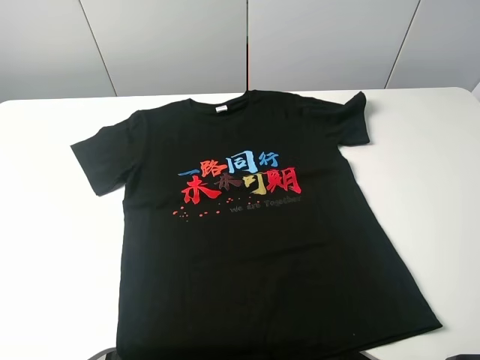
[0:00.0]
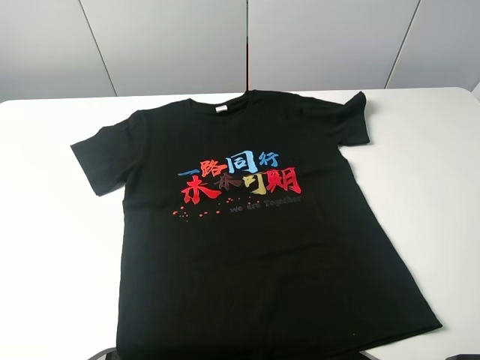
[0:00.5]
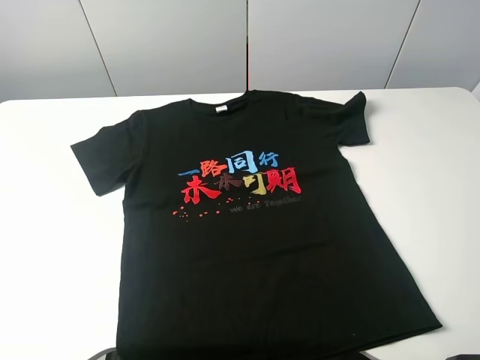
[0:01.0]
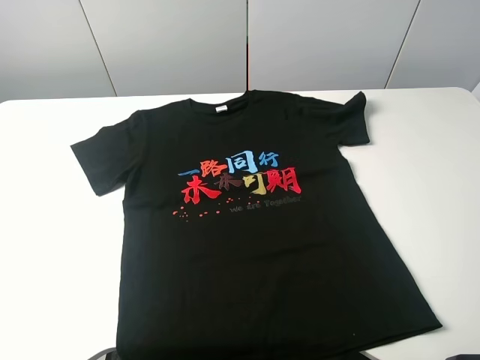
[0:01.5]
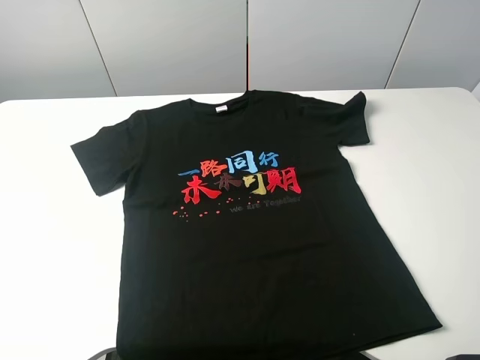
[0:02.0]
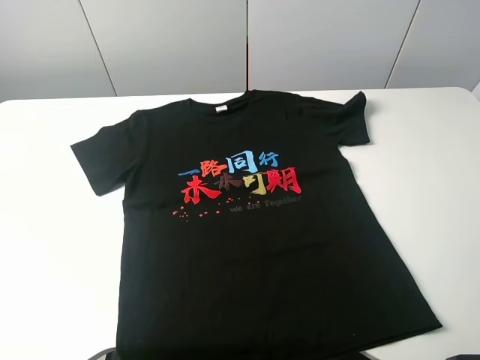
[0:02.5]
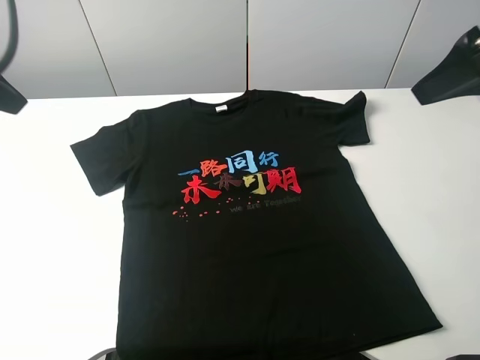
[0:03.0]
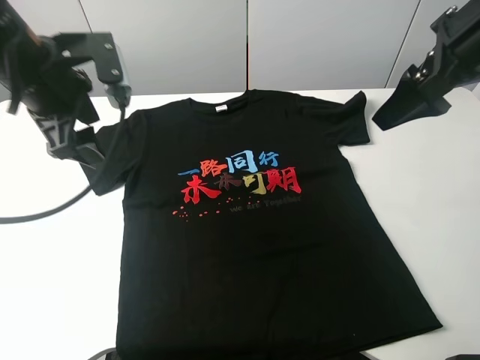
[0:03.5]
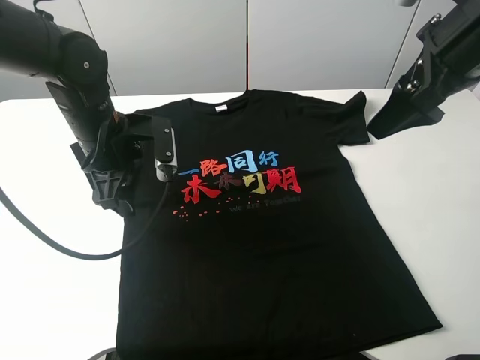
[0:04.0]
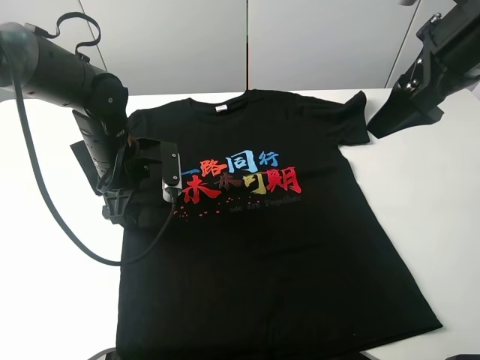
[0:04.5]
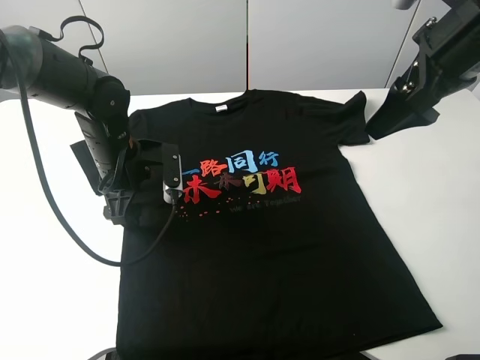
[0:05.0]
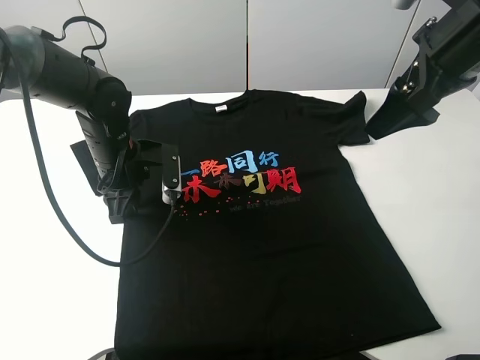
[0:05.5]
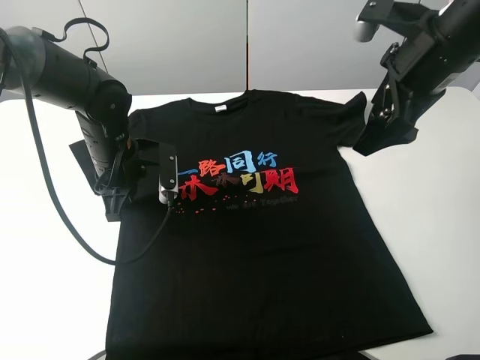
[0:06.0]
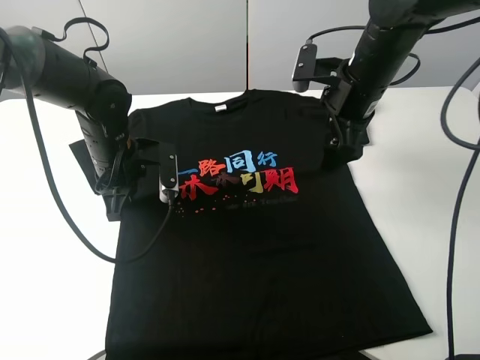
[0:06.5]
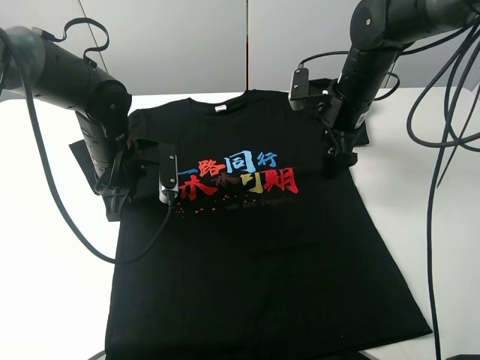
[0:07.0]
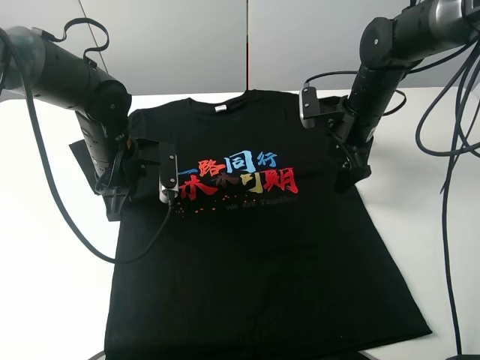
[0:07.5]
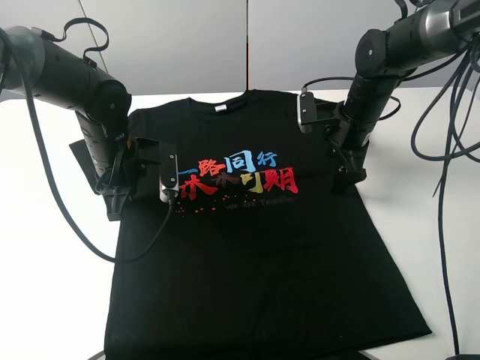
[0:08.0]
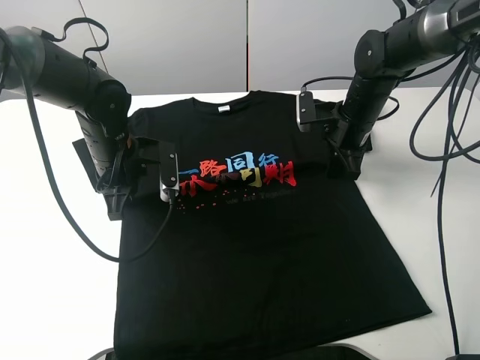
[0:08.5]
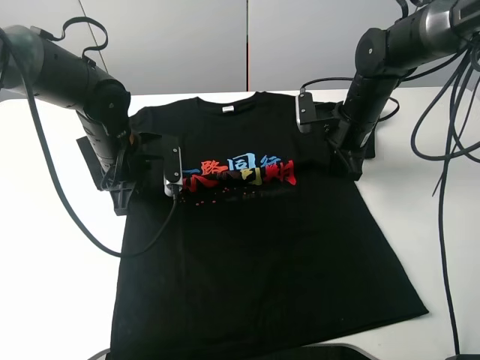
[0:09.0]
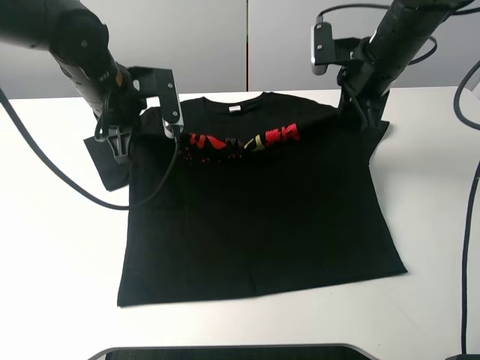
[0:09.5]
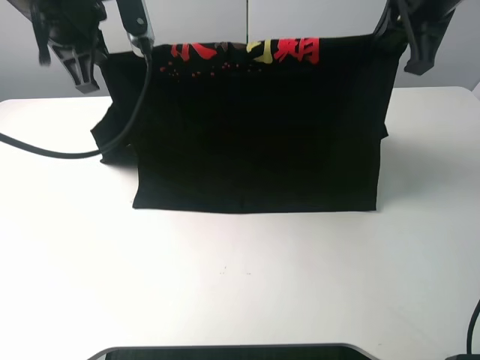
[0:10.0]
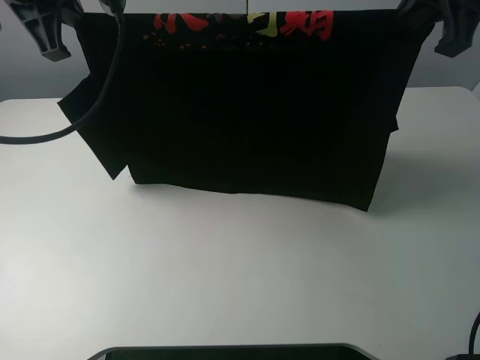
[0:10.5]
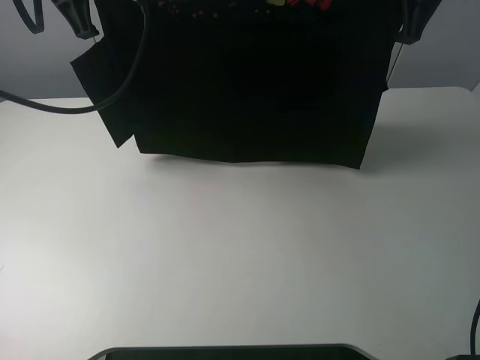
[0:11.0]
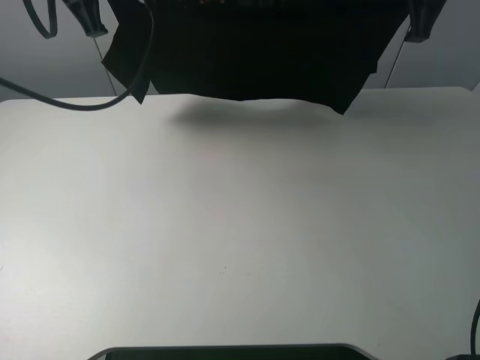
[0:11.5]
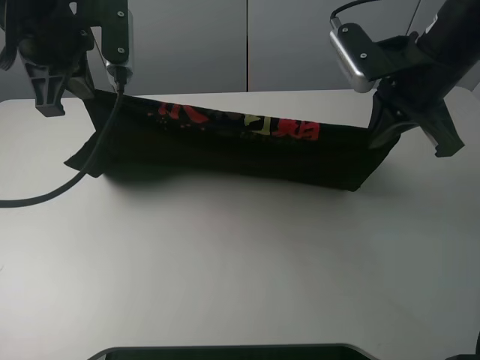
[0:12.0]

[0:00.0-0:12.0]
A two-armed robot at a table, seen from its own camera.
Task of the whole recording: fold the clothes on the table.
Step, 0:00.0 to 0:08.5: Lift the black T-shirt with the left gripper.
0:02.0 to 0:04.0: The left gripper heads forward, to the right and downward, covering approximately 40 cm. Meanwhile the right gripper travels forward by about 30 cm.
0:04.0 to 0:06.0: The left gripper closes up.
0:06.0 to 0:08.0: The right gripper moves downward and forward, about 20 cm.
0:08.0 to 0:10.0: Both grippers move upward, approximately 20 cm. The right gripper closes up.
0:10.0 to 0:12.0: The right gripper shifts some 10 cm downward.

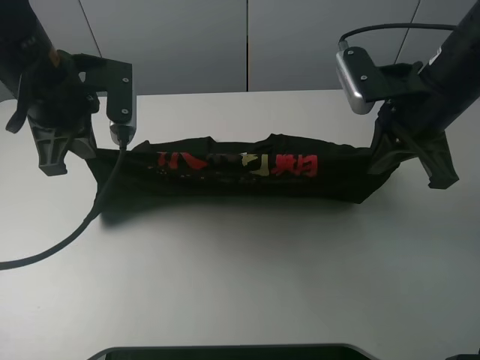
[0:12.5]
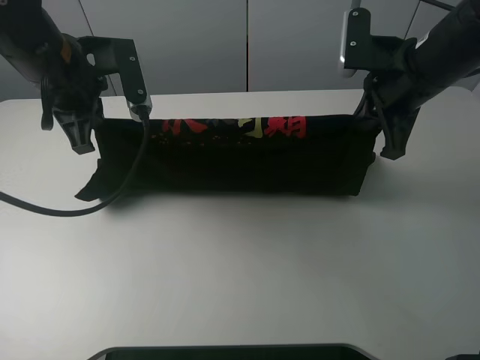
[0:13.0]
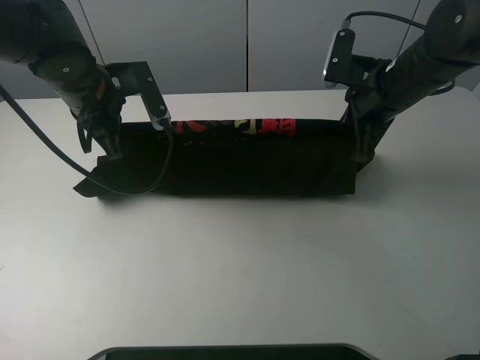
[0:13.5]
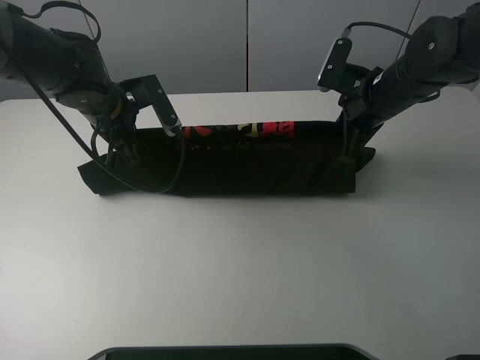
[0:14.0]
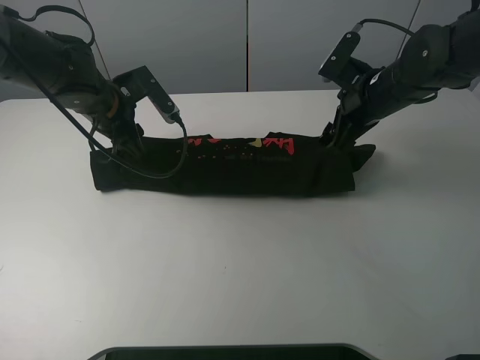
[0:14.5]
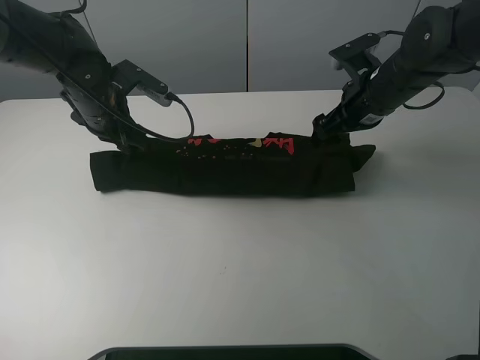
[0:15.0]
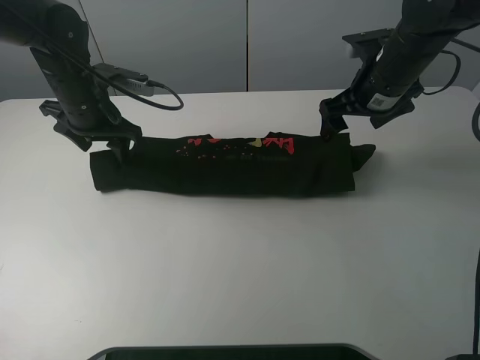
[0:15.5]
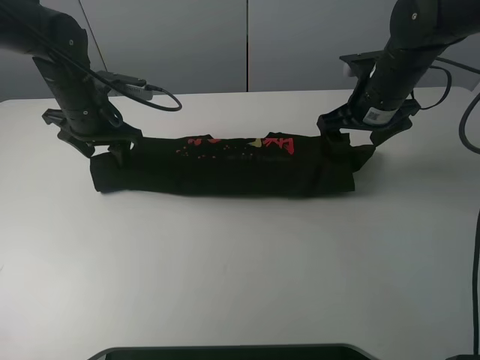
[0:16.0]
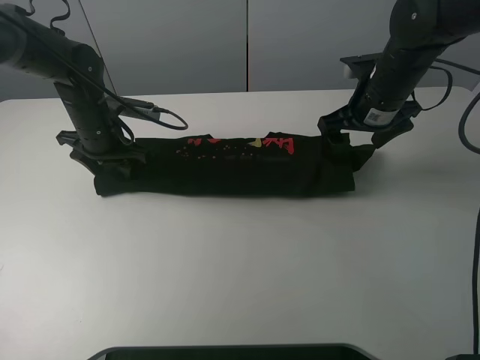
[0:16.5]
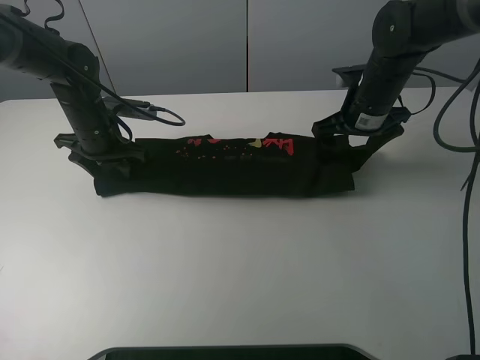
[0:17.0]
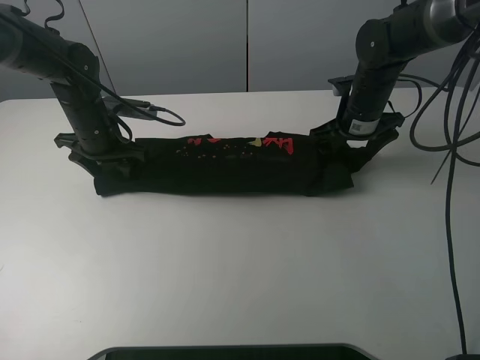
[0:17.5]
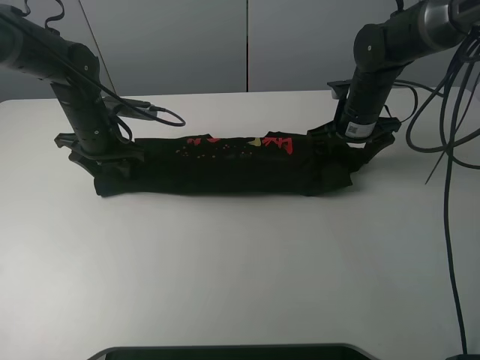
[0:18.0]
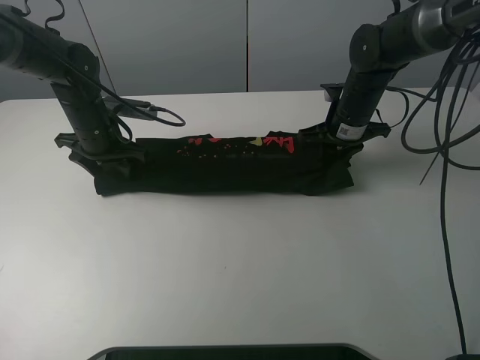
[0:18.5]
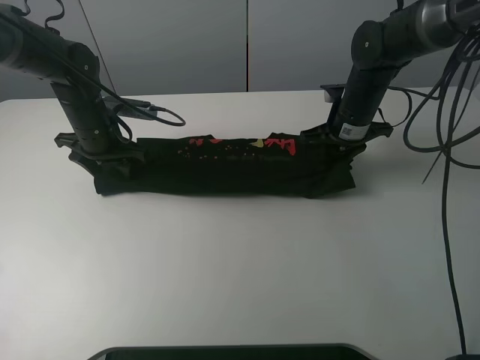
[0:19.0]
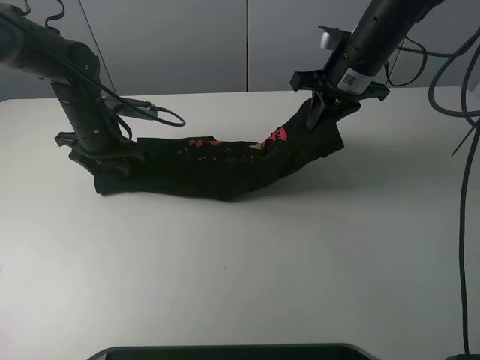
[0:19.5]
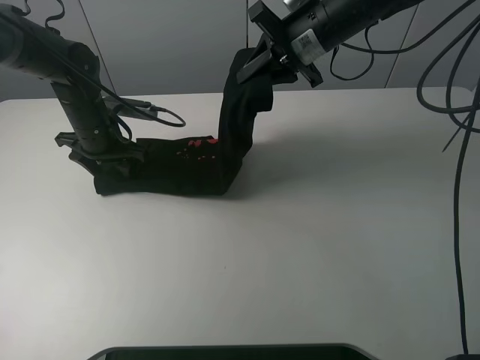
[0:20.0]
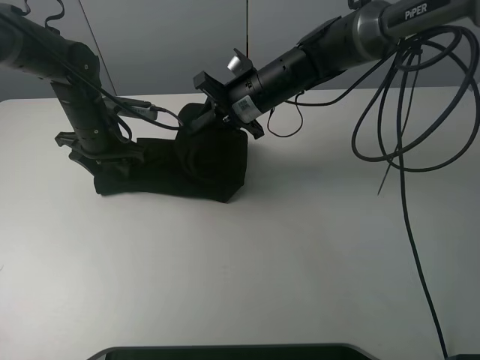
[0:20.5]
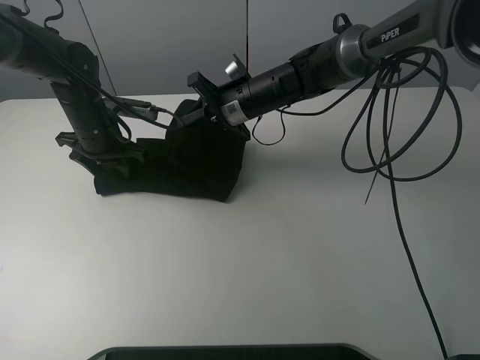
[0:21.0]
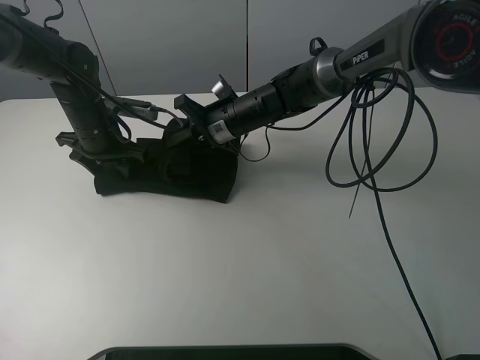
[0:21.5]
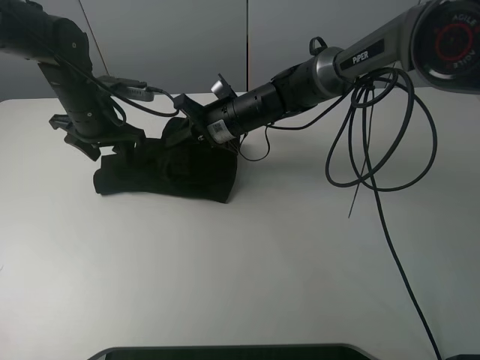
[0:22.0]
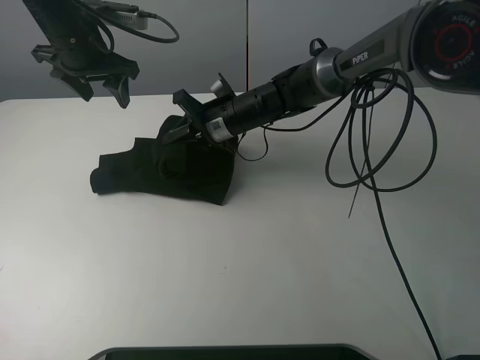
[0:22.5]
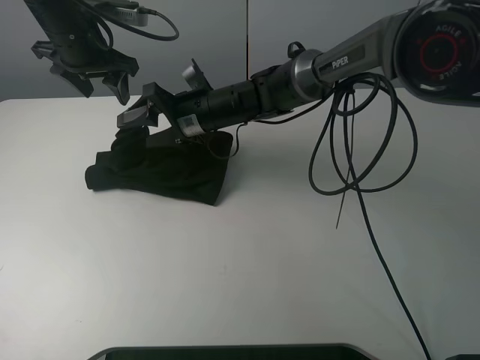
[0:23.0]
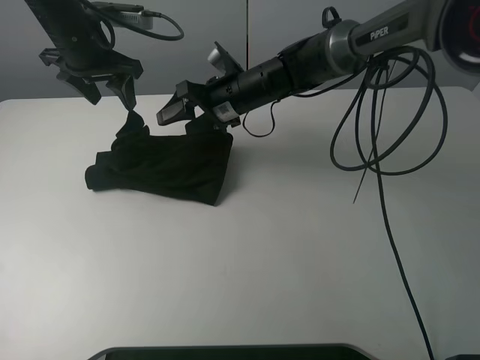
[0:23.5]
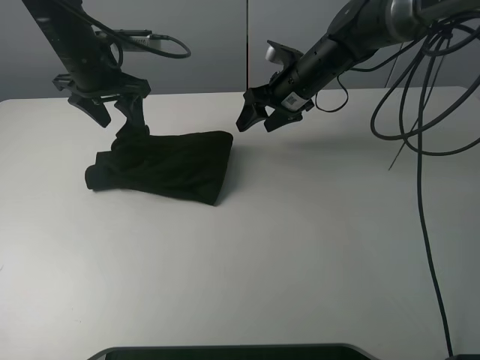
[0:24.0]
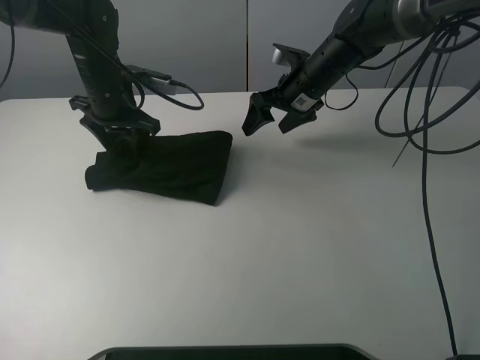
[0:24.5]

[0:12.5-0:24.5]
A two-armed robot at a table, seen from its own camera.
Task of the whole recording: fold the clothes on the table.
Step, 0:12.5 to 0:14.5: Fold the black T-shirt downward with the left gripper.
Step, 0:15.0 to 0:18.5: Grasp the black T-shirt with the left gripper.
Step, 0:19.0 to 0:23.0: Fold the black T-shirt from right to left with right gripper.
0:12.5 to 0:14.5: The right gripper travels forward and downward by some 10 cm, and opens its fingers. The left gripper shifts about 15 cm downward and forward, and opens.
0:16.5 to 0:18.5: The right gripper is displaced downward by some 5 cm, and closes its fingers.
0:18.5 to 0:20.5: The right gripper travels to the left by some 15 cm.
0:20.5 to 0:22.5: The left gripper is displaced upward by roughly 15 cm; the right gripper shifts by some 5 cm.
0:22.5 to 0:24.5: The right gripper is displaced to the right by some 10 cm, and opens, while the left gripper moves downward, some 10 cm.

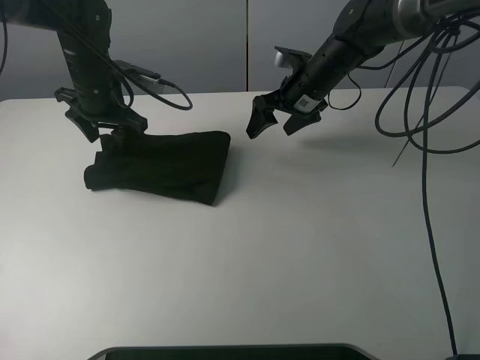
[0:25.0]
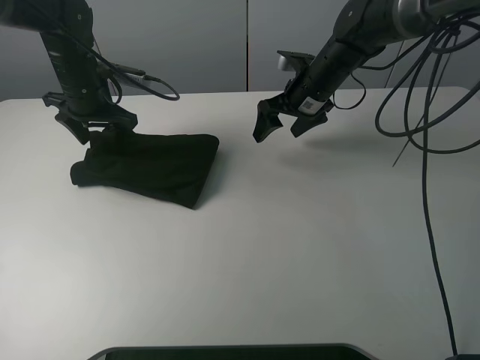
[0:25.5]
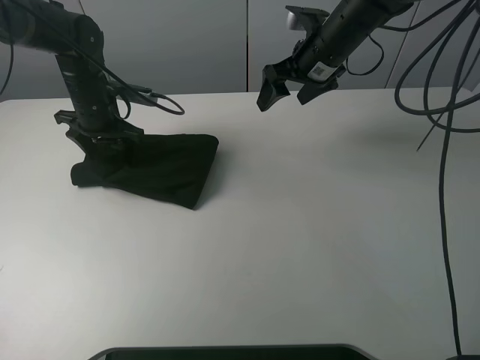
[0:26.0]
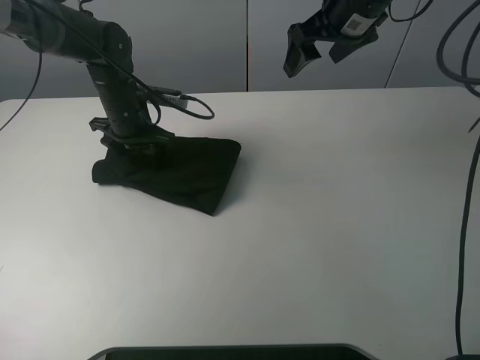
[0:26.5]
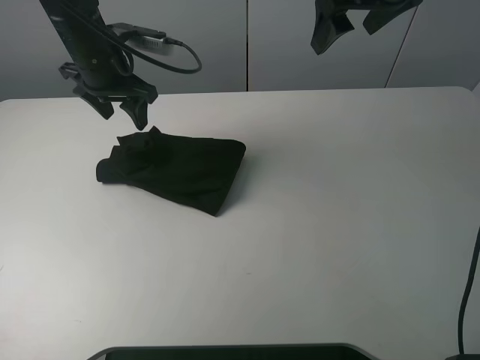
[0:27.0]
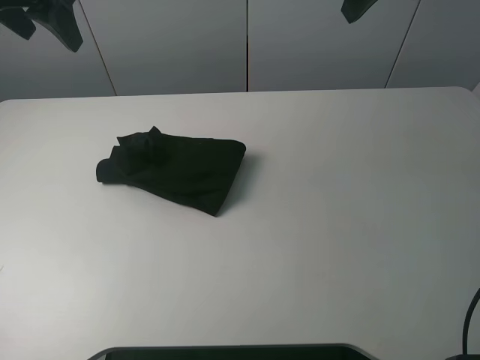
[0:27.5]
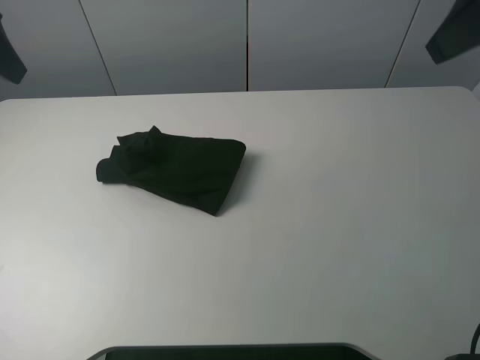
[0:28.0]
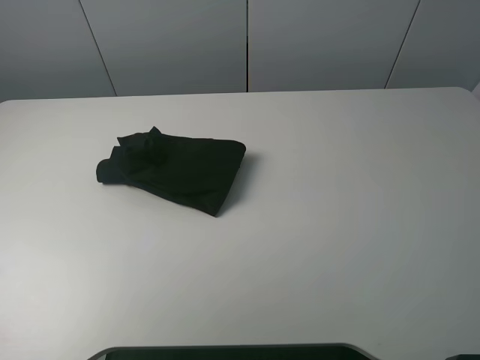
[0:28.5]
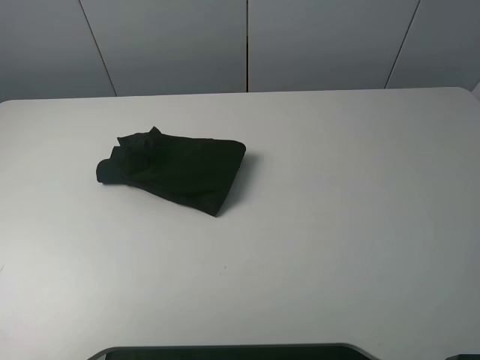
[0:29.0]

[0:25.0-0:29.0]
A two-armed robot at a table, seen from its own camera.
Task of the whole recording: fold the clothes on the table.
Step, 0:25.0 to 0:27.0: Use the left gripper to tidy up the clothes.
0:25.0 to 0:27.0: The left gripper shifts approximately 5 cm upward; the right gripper goes roughly 20 cm upward.
0:27.0 to 0:29.0: The right gripper travels backward by some 40 cm; the left gripper shifts about 40 cm backward and to the left.
